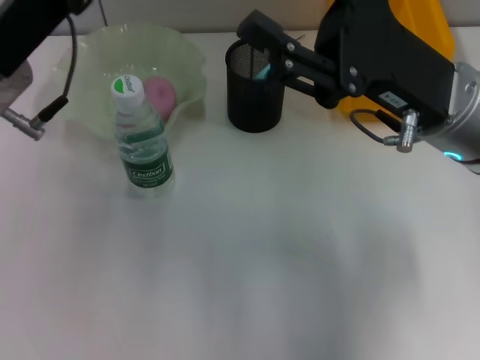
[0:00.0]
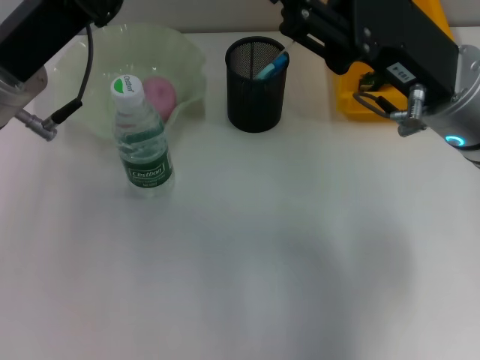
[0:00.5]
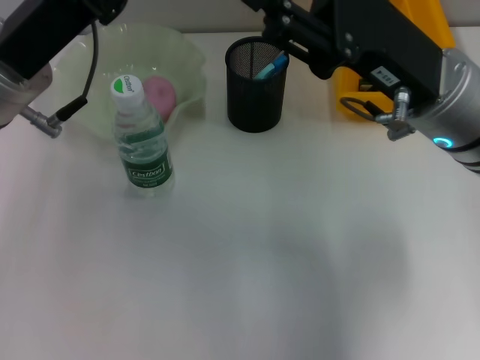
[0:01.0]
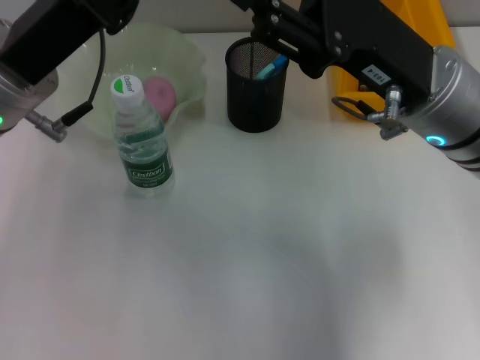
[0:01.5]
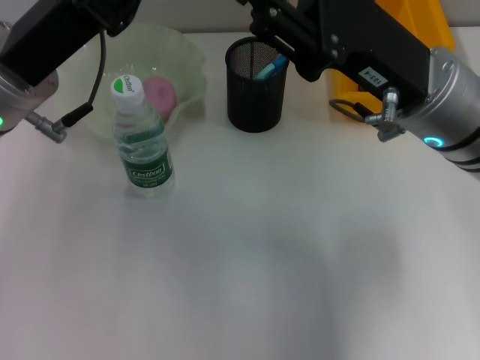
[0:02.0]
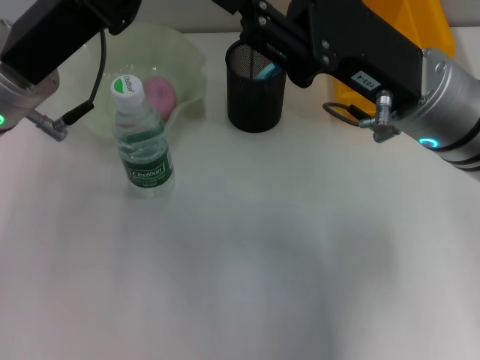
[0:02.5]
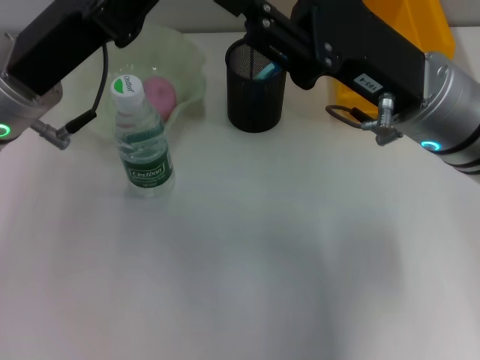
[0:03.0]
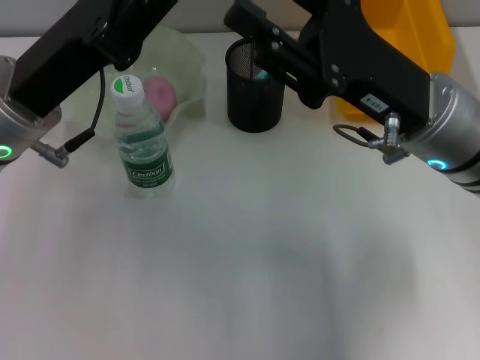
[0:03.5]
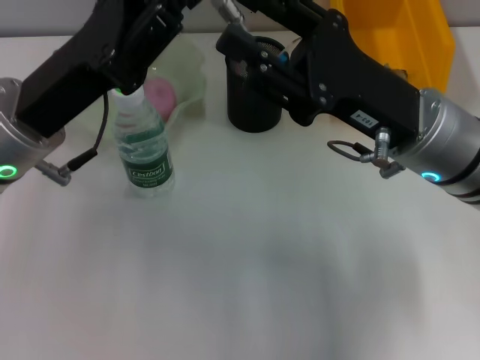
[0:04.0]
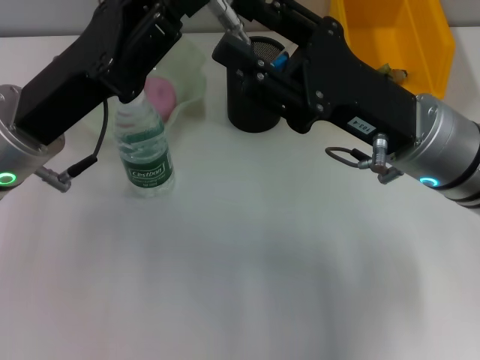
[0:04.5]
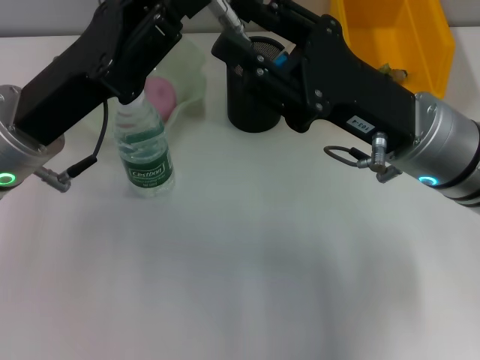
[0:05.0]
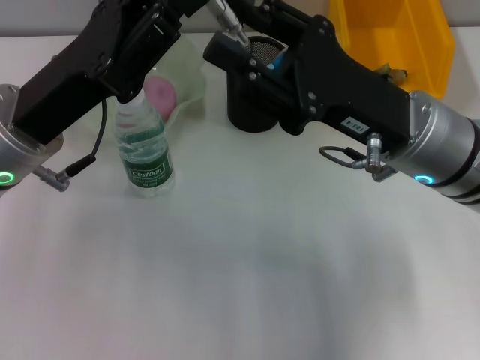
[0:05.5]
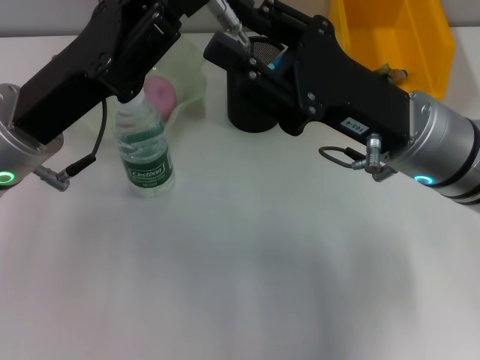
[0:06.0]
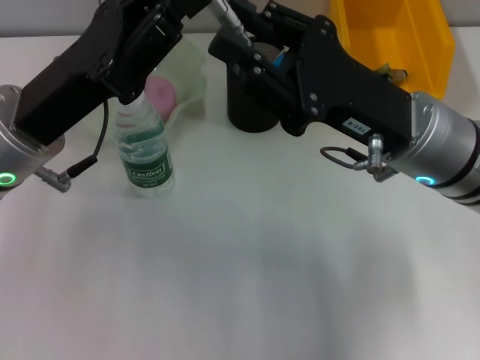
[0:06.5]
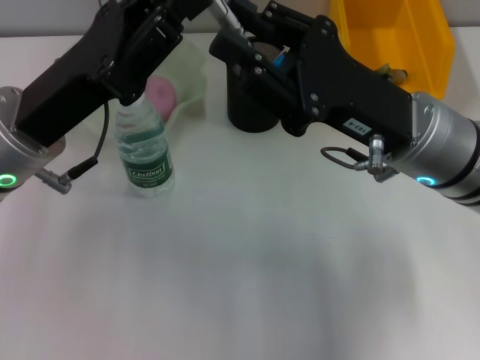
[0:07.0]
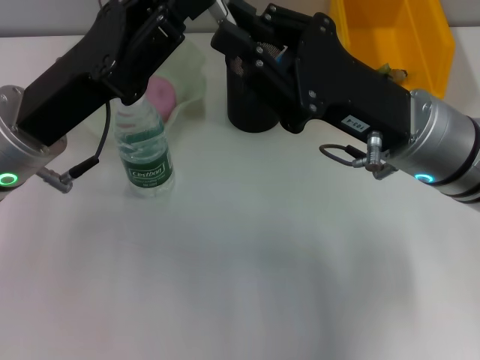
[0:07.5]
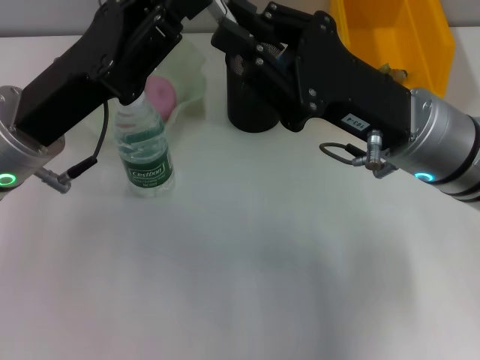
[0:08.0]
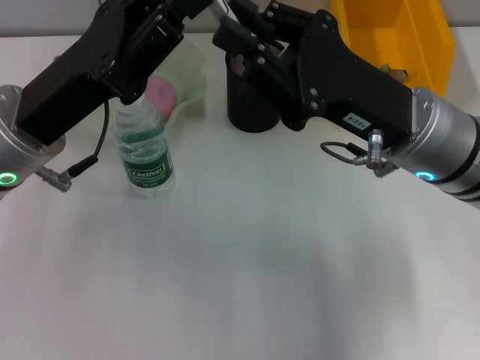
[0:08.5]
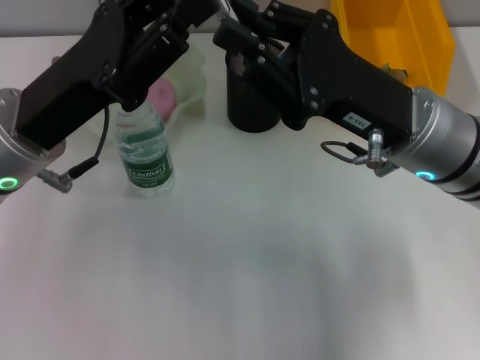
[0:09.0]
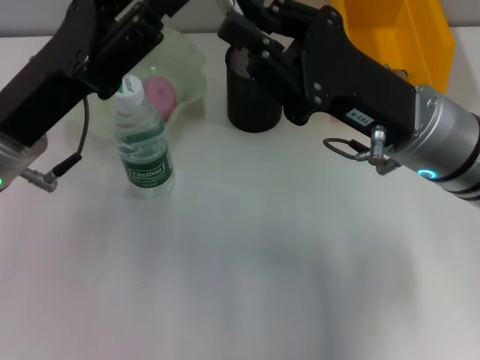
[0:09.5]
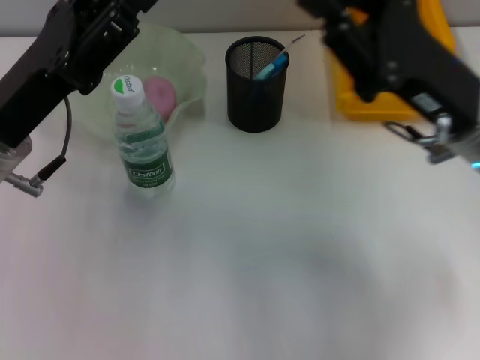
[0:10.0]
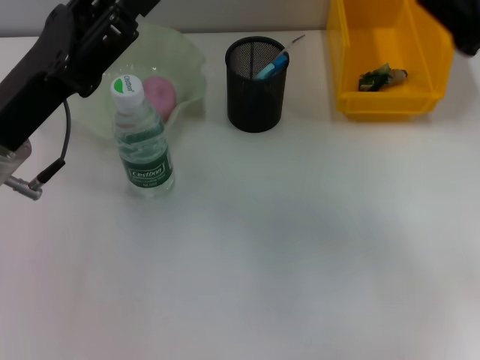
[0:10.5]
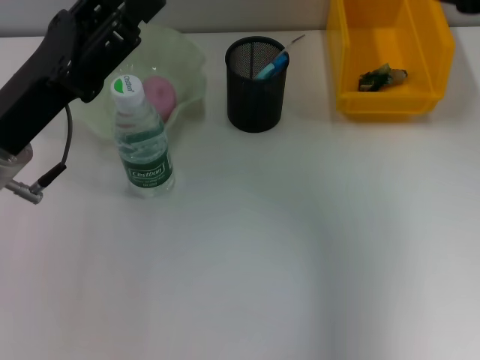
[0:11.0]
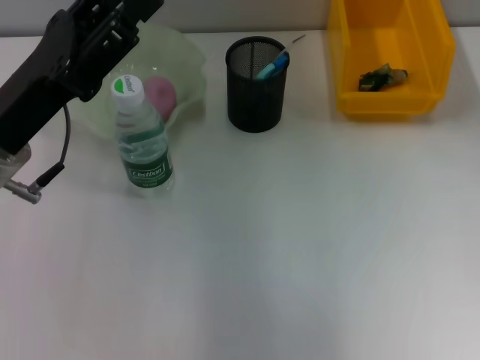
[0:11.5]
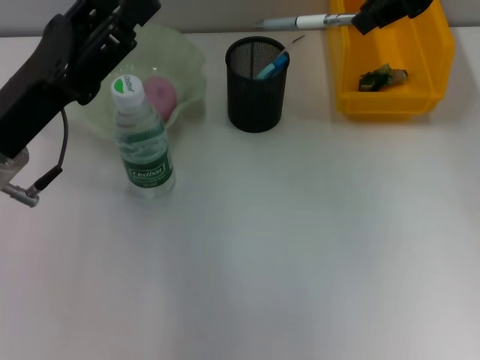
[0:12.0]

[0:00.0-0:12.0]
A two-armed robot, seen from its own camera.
Step, 0:00.0 to 0:09.5: Pass the gray spring-action pen from the left hand to the right hand.
0:00.0 to 0:02.0: The grippers move only a little.
0:04.0 to 0:06.0: The two grippers keep their place.
0:06.0 to 0:08.0: The right gripper closes its fingers.
0:08.0 to 0:10.0: The left gripper opens.
0:10.0 to 0:12.0: The right gripper travels upward and forward by approximately 20 cm.

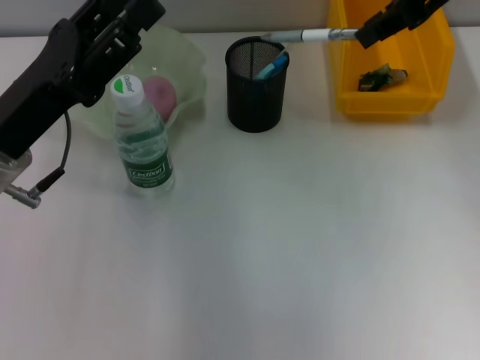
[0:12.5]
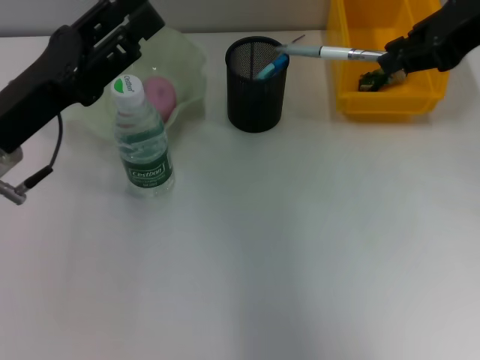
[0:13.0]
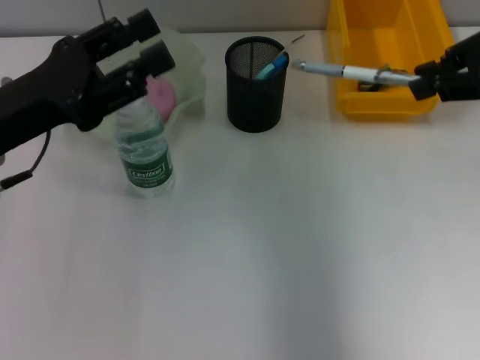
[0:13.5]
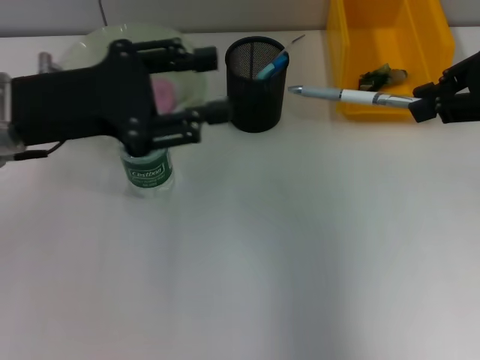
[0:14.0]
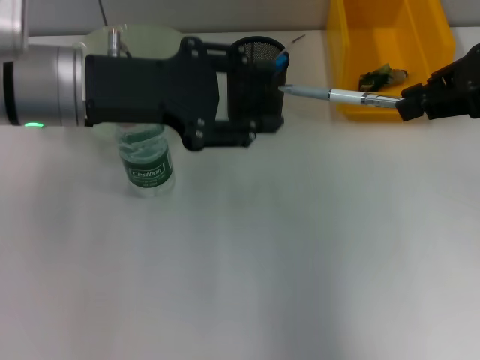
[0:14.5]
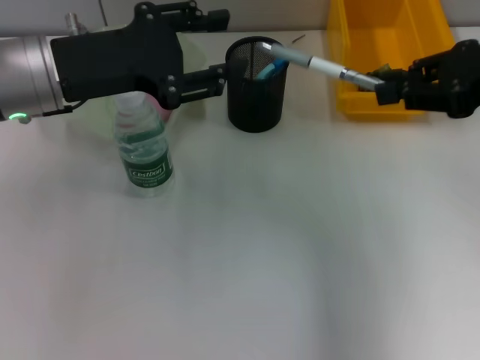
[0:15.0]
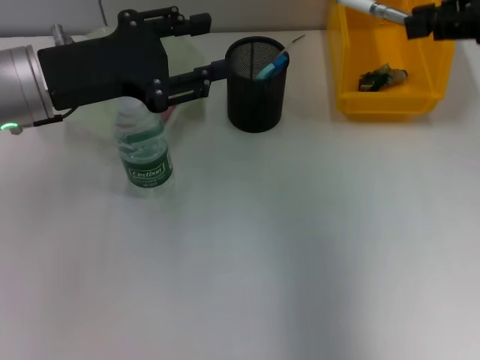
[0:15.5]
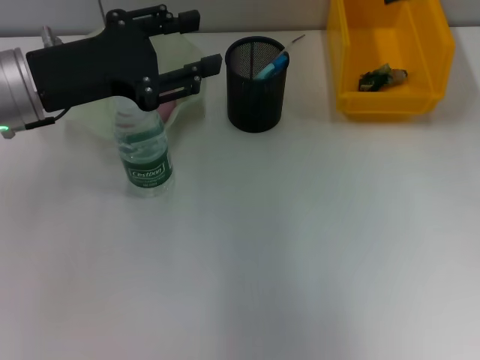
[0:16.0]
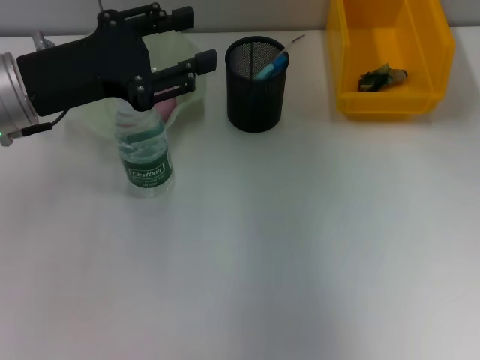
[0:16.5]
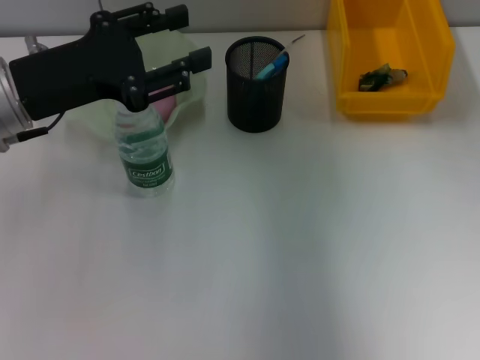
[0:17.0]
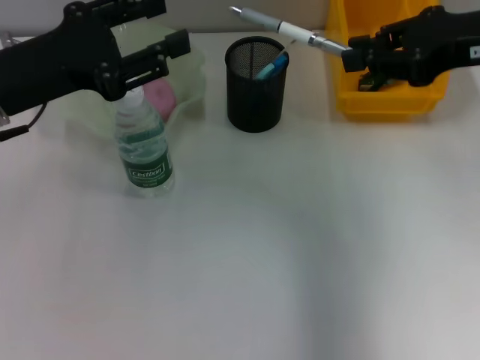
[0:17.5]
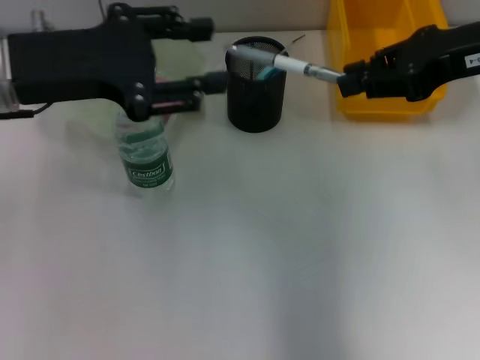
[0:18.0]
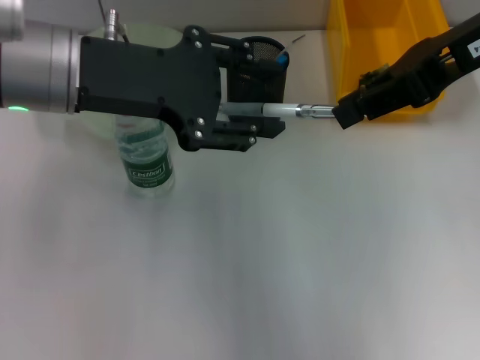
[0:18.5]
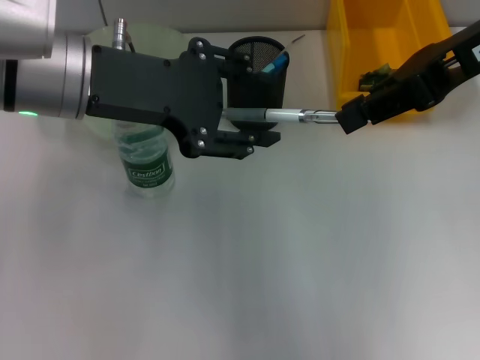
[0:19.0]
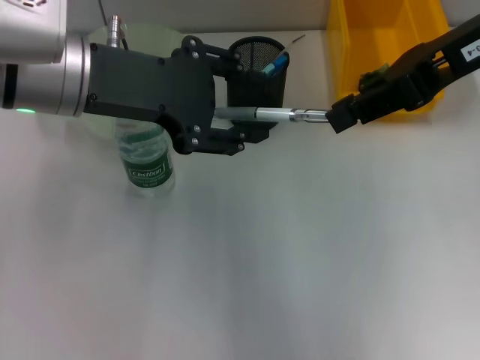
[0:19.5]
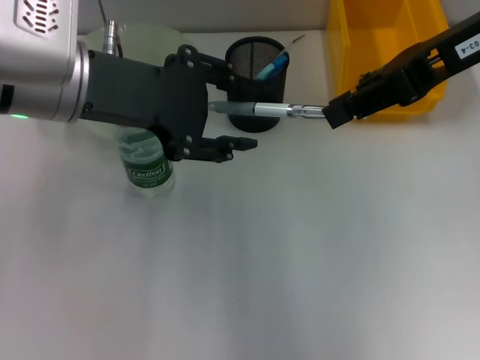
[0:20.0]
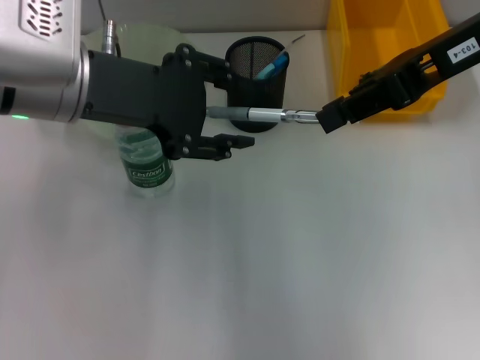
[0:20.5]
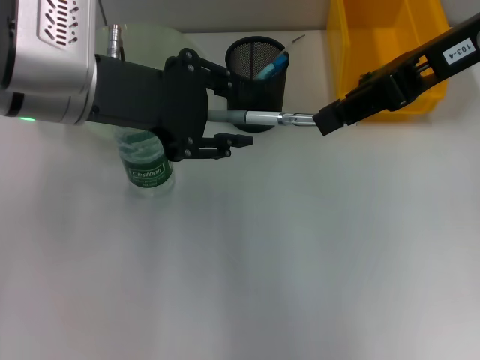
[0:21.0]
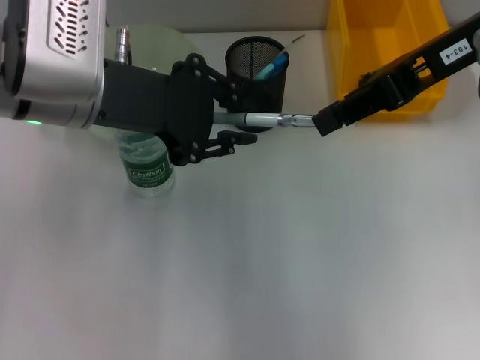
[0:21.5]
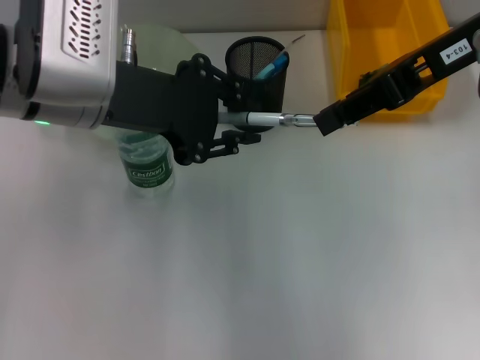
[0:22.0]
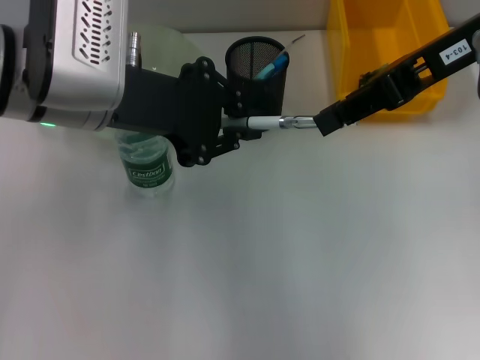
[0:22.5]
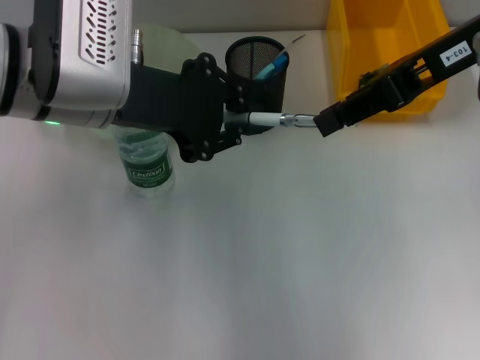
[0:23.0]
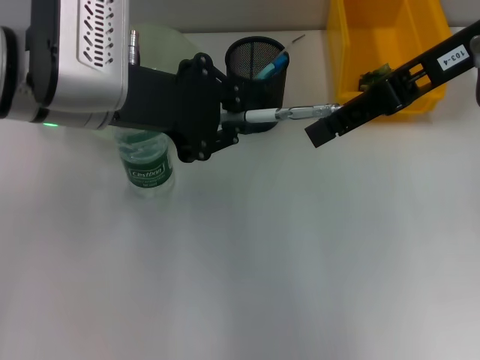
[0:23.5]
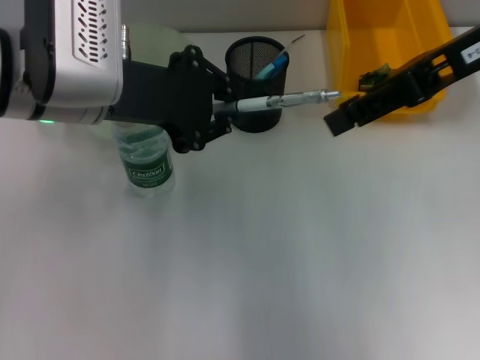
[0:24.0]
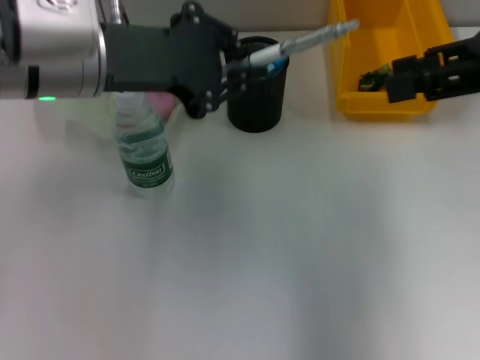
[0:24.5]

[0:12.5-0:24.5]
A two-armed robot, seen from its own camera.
Step, 0:12.5 to 0:24.0: Pass the gray spring-action pen from the right hand to the left hand.
0:12.5 to 0:14.5: The right gripper goes approximately 10 cm to the right and backward. Meanwhile the left gripper is displaced upward and forward by roughly 10 cm.
0:14.5 to 0:16.5: The right gripper moves forward, about 5 cm. Meanwhile the left gripper shifts by about 5 cm.
0:16.5 to 0:18.5: The left gripper shifts roughly 10 cm upward and to the right, while the right gripper shifts about 10 cm backward and to the left.
0:18.5 to 0:20.5: The grippers stay close to where they were, moving slightly.
0:20.5 to 0:22.5: The left gripper closes.
0:22.5 to 0:24.5: The right gripper goes some 5 cm to the right, and opens up.

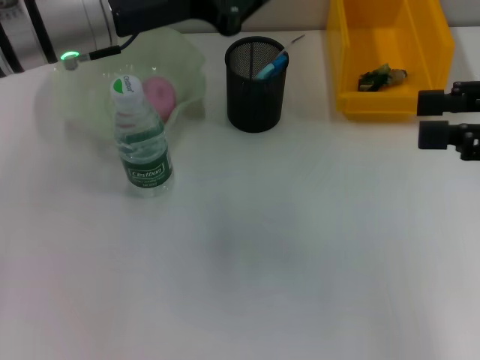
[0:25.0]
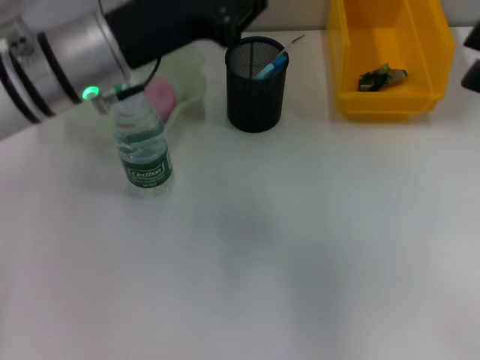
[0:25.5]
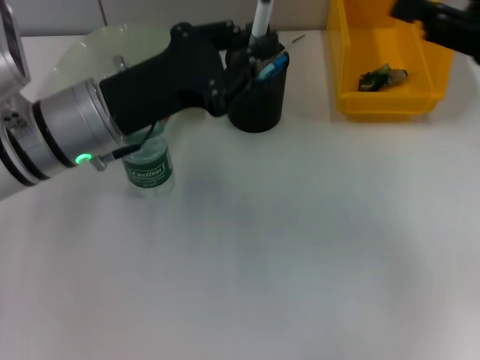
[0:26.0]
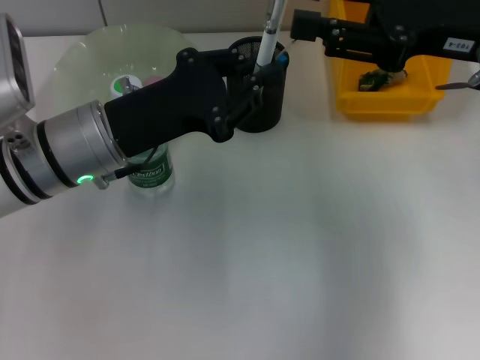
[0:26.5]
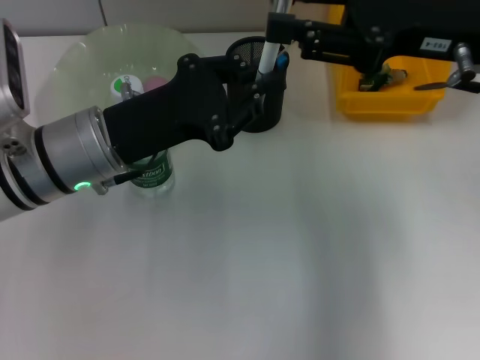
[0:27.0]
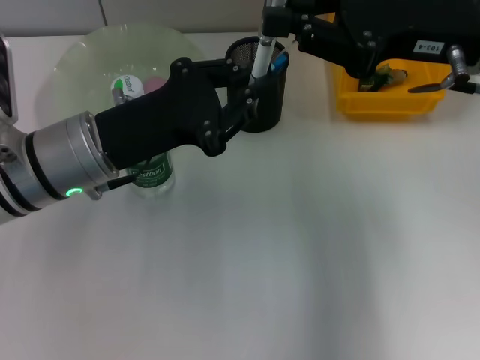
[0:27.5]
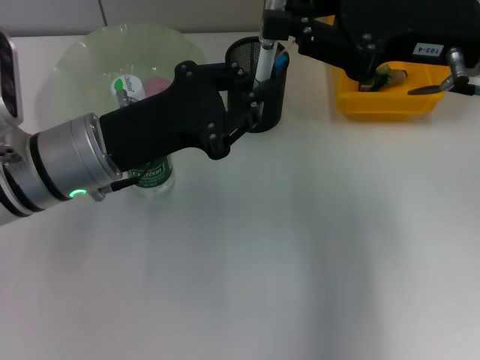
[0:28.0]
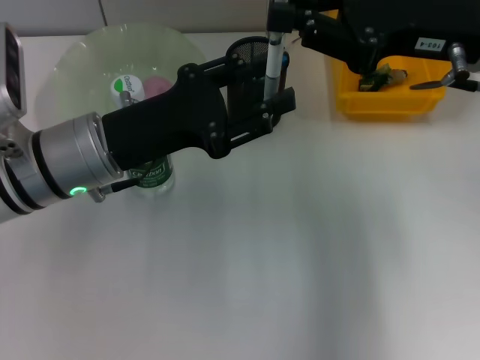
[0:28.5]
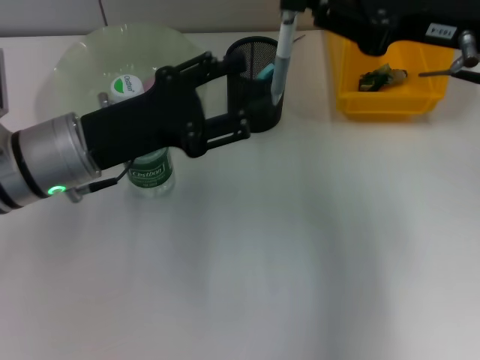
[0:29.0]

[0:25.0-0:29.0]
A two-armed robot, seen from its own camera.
Step, 0:25.0 to 0:28.5: Pass the gray spring-action pen from the left hand to the right hand.
0:25.0 to 0:27.0: The right gripper heads to the left and forward, covering approximately 15 cm; the left gripper travels downward by some 10 cm.
0:27.0 to 0:29.0: The left gripper opens. The right gripper closes.
